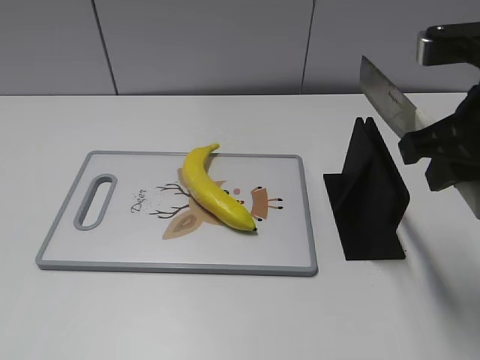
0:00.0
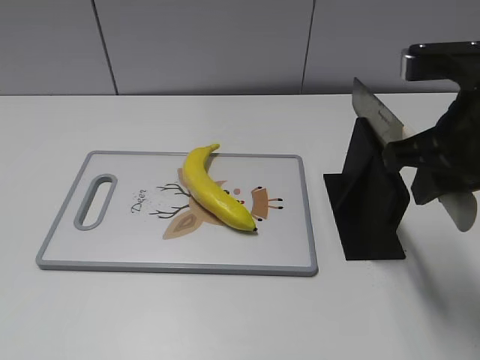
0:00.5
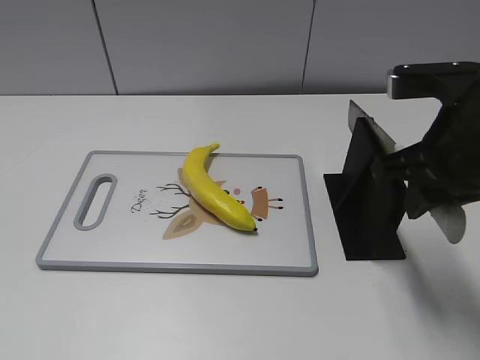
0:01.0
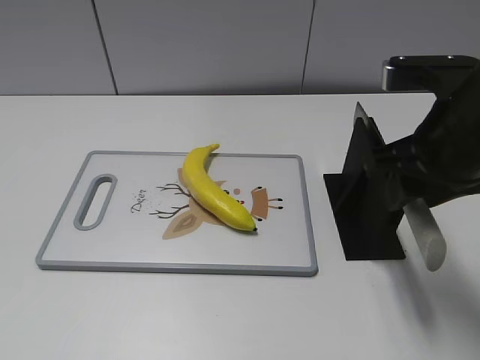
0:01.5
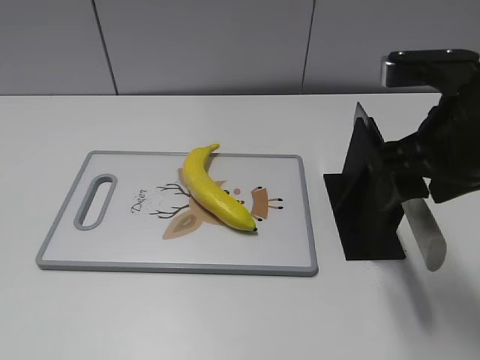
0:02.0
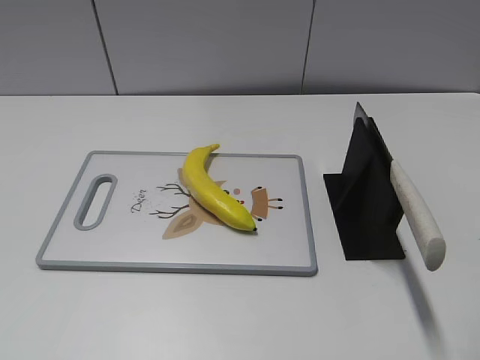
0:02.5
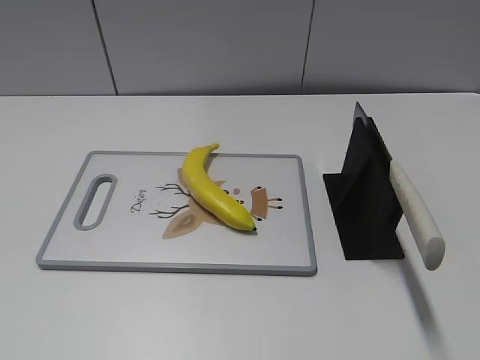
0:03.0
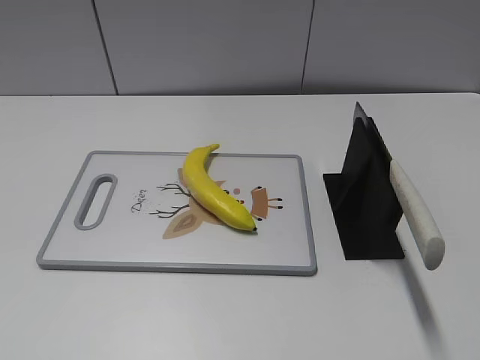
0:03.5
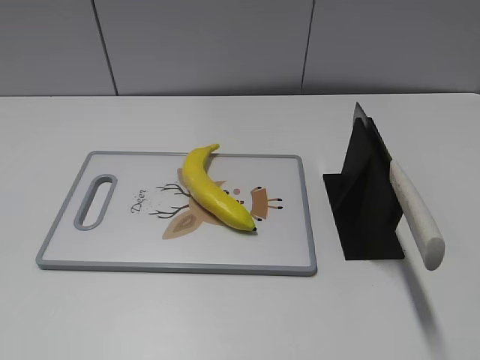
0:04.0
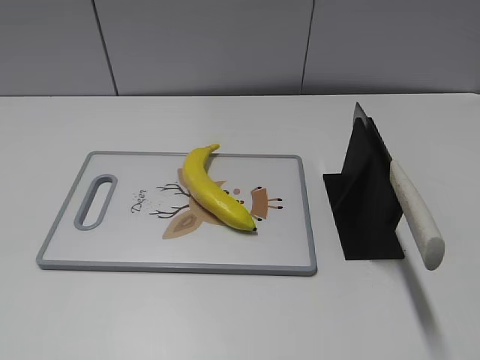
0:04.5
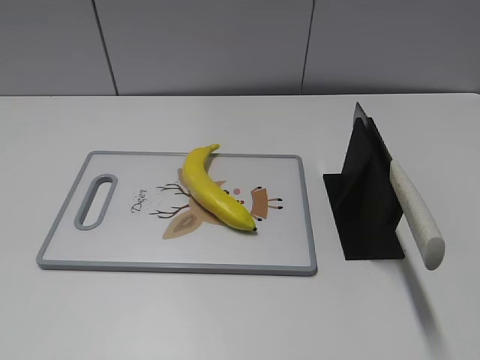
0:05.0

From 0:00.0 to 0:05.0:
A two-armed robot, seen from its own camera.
Task of the whole recording: cut plastic banana.
Step, from 0:00.0 to 0:05.0: Place the knife on the storage rack with your right hand.
From 0:00.0 to 0:02.5: The right gripper shifts some 10 cm backward, and opens.
